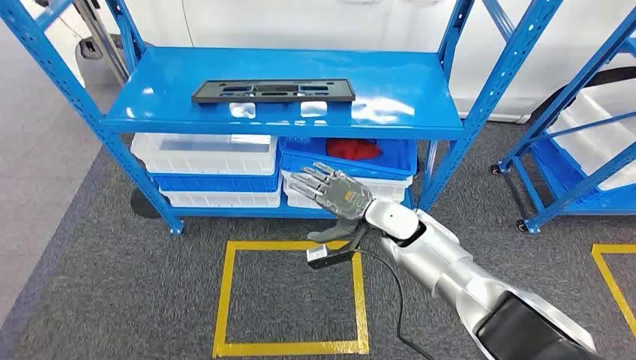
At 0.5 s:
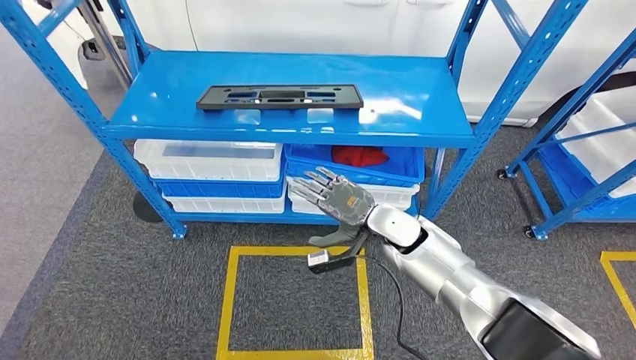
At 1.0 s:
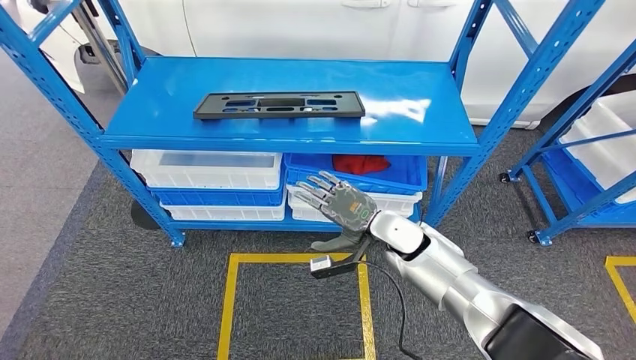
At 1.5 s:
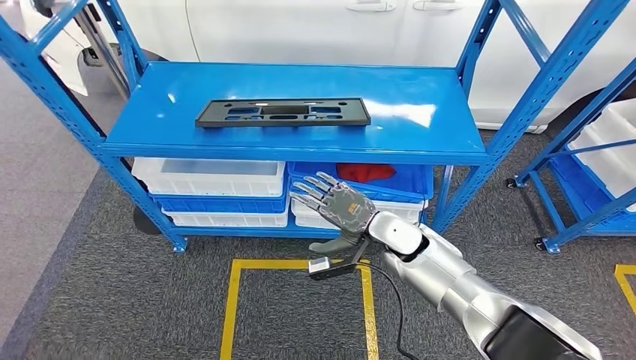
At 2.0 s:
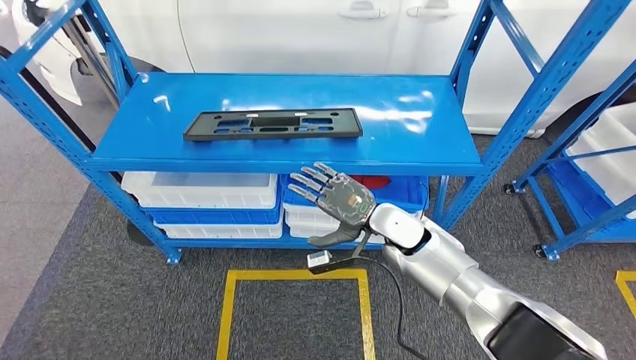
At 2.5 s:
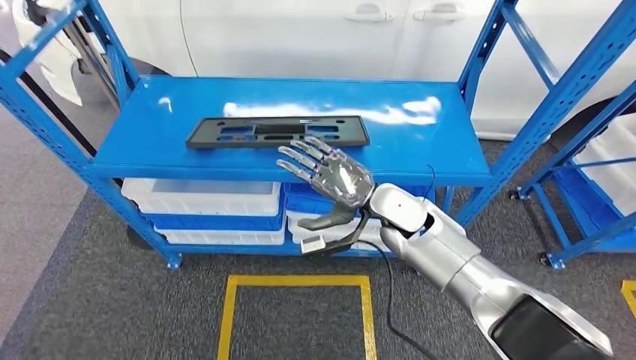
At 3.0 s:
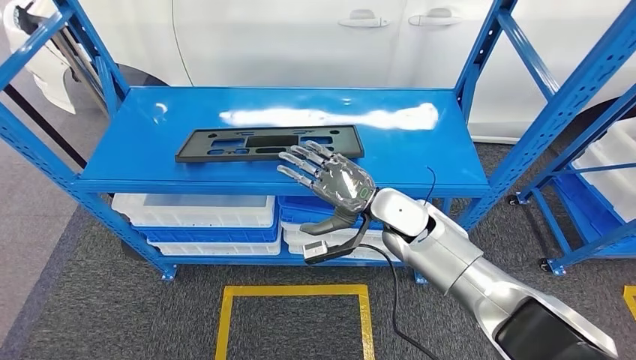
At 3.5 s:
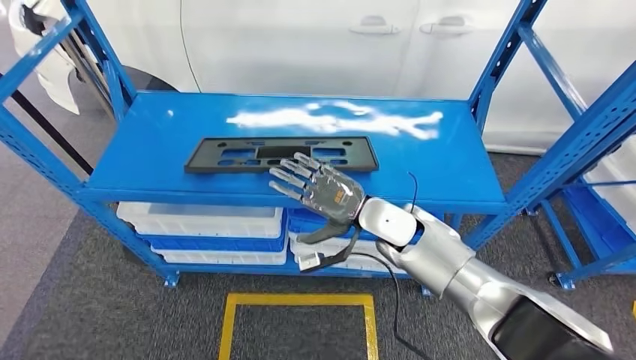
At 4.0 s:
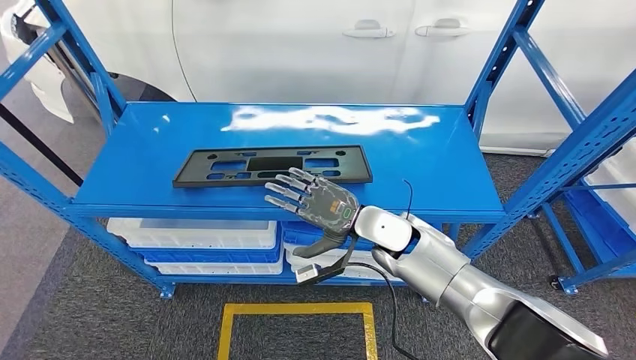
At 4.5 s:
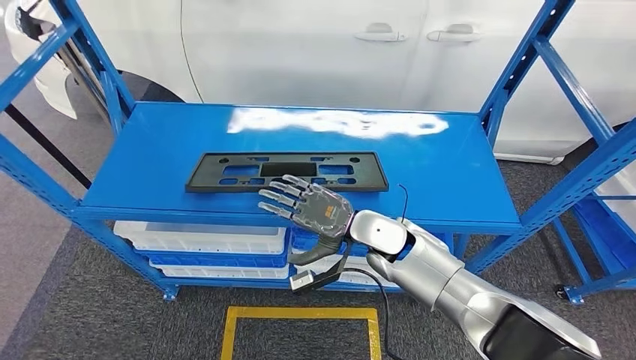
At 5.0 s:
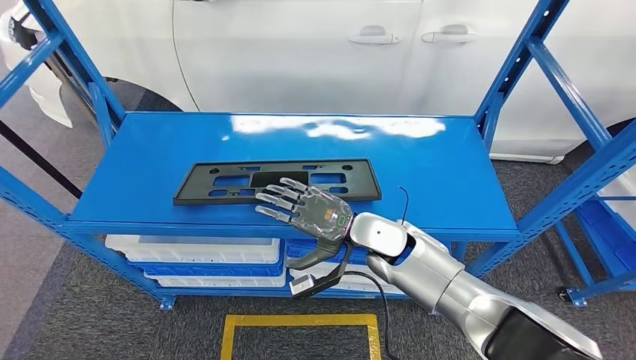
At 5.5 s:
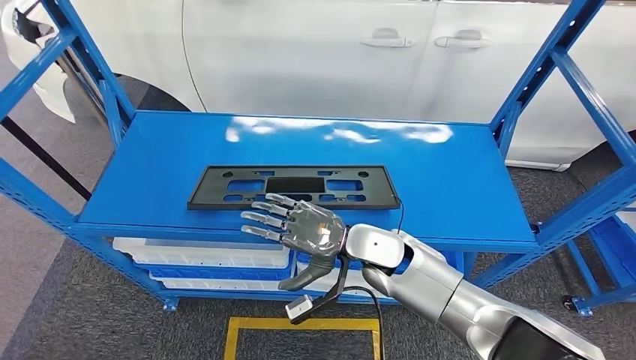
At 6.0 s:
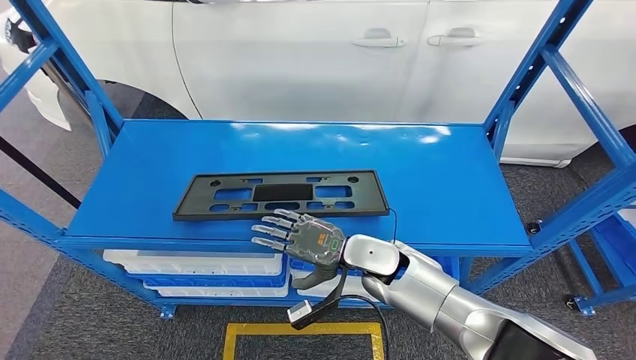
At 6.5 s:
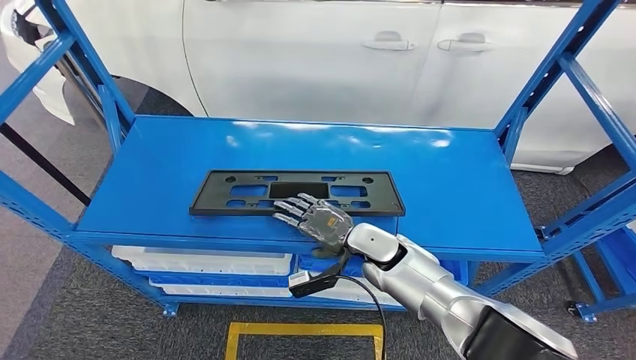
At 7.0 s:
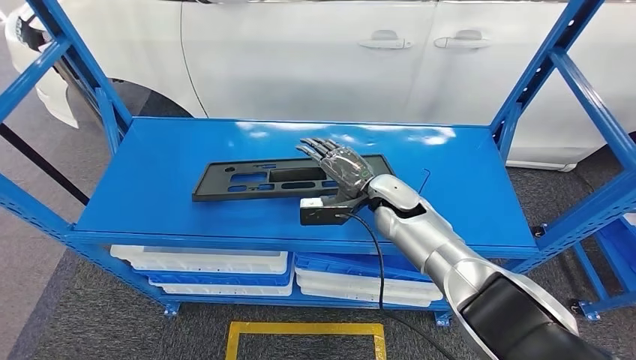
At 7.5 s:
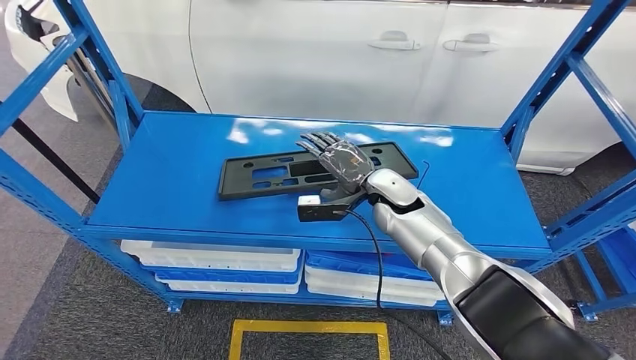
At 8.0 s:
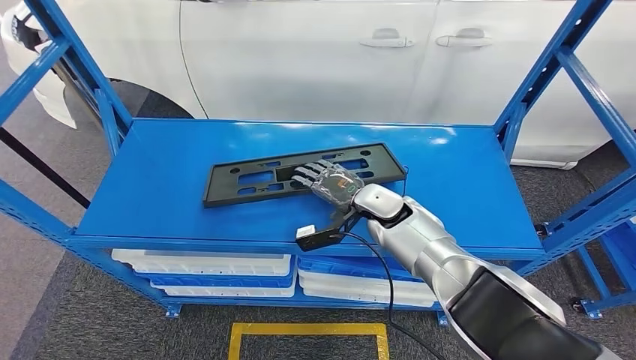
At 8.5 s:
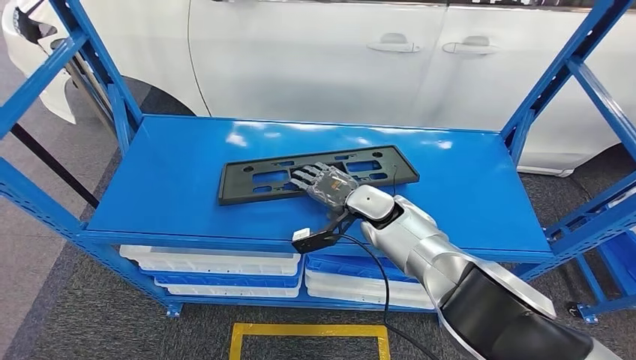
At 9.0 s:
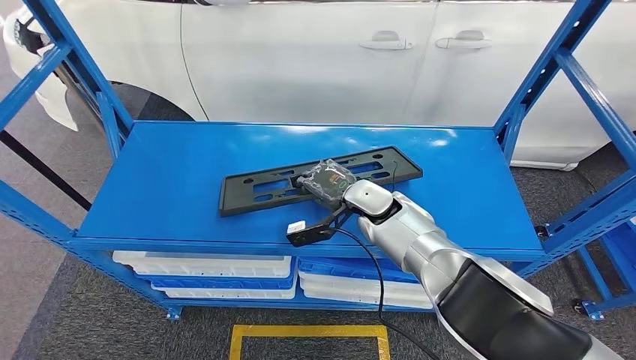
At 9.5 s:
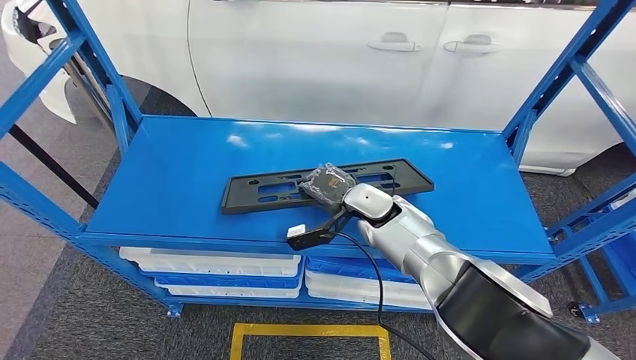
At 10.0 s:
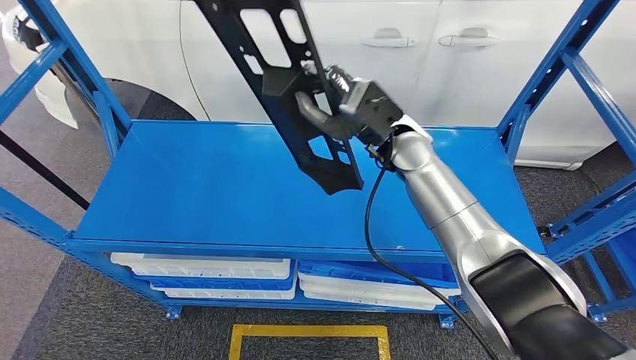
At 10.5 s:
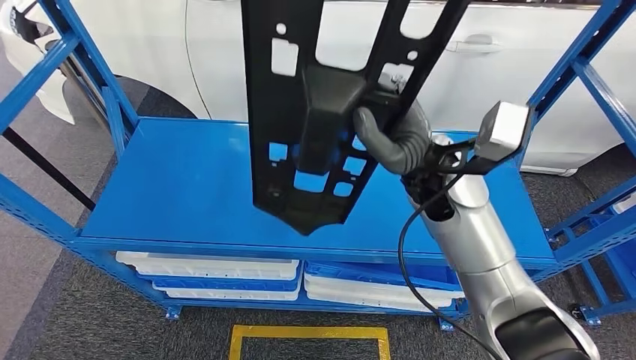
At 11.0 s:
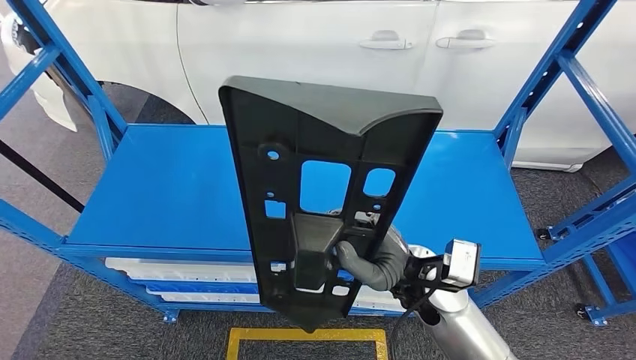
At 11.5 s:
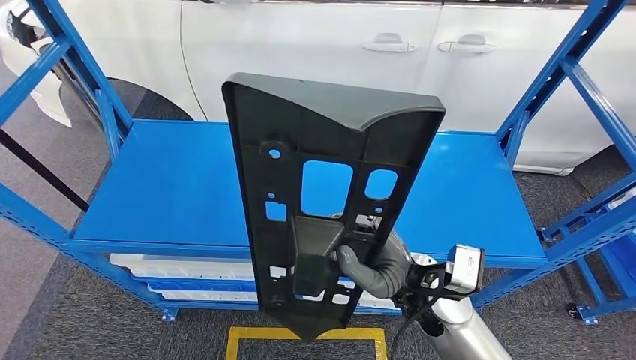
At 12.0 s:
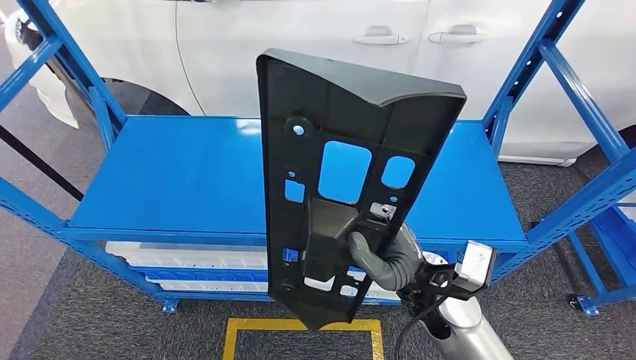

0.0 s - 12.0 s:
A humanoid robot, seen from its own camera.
Step, 0.0 s - 10.5 s: Pick up the large material from the shelf.

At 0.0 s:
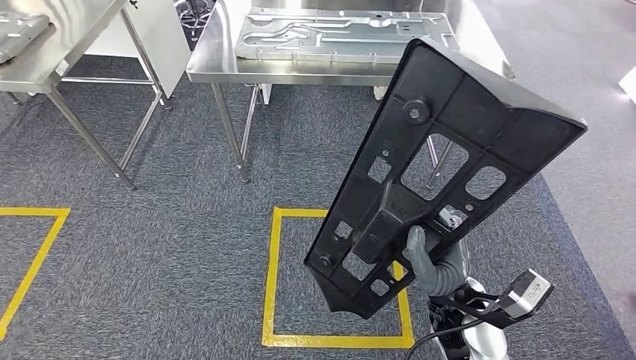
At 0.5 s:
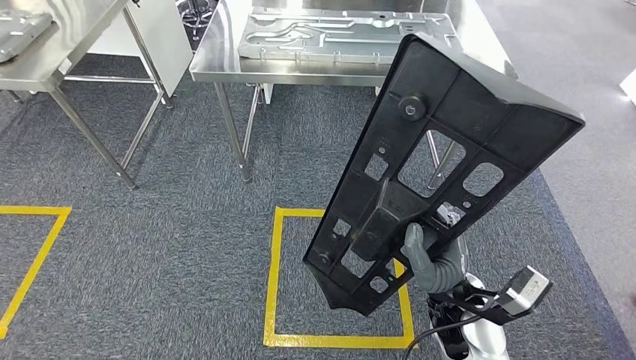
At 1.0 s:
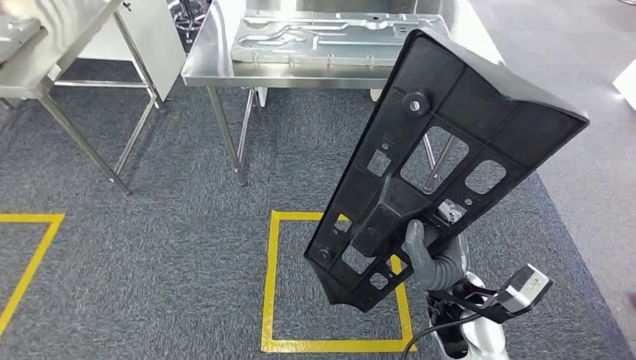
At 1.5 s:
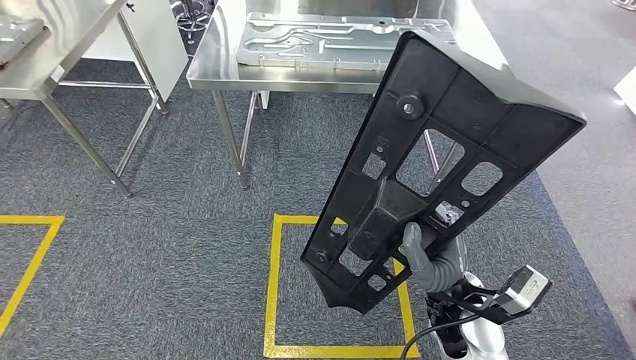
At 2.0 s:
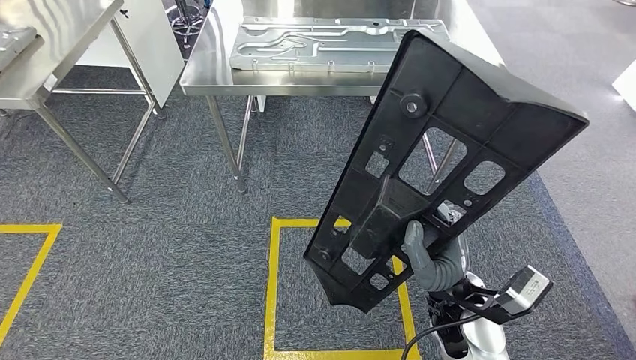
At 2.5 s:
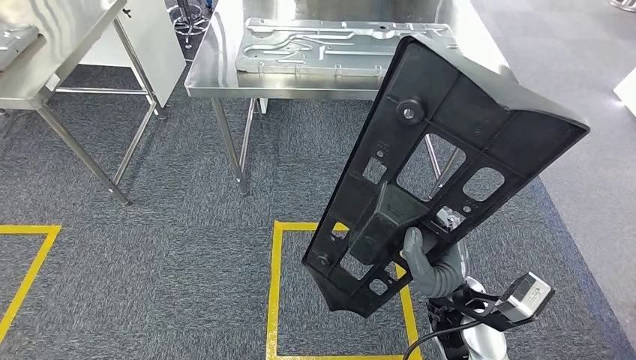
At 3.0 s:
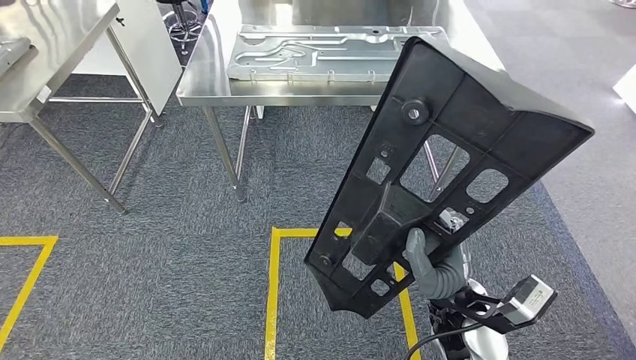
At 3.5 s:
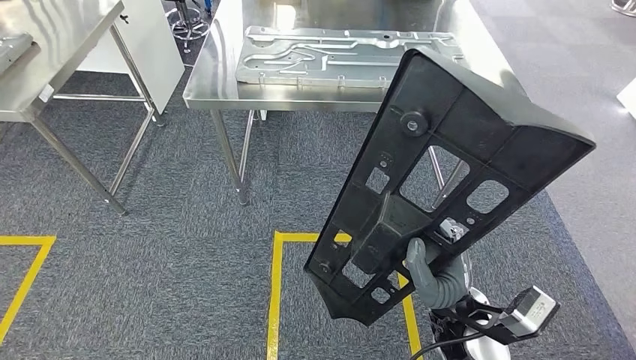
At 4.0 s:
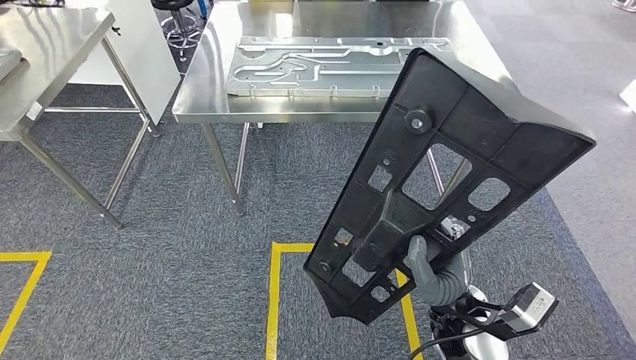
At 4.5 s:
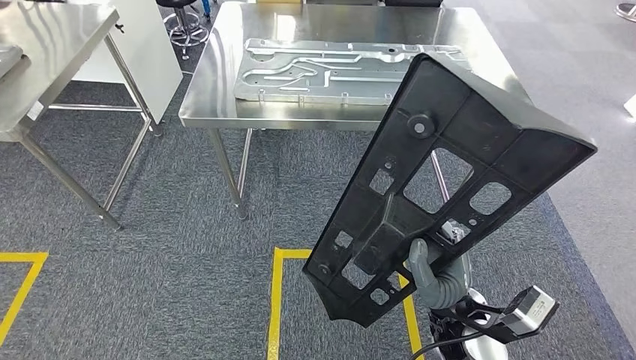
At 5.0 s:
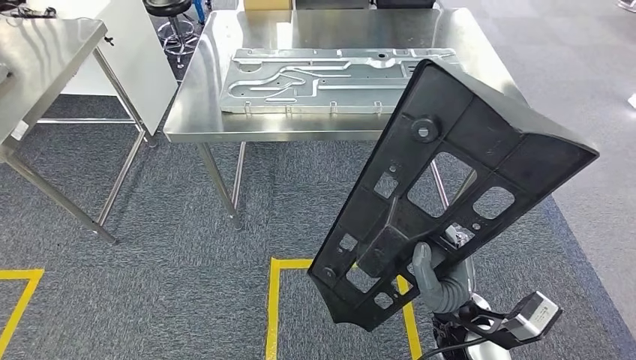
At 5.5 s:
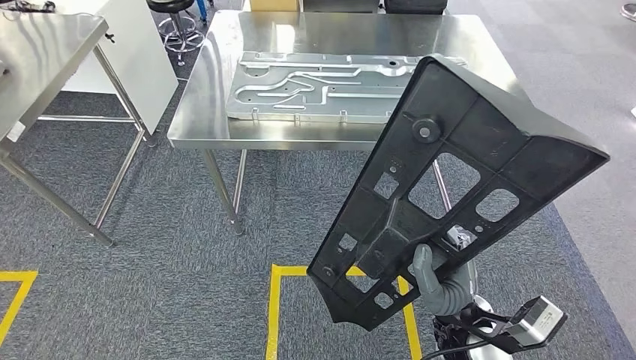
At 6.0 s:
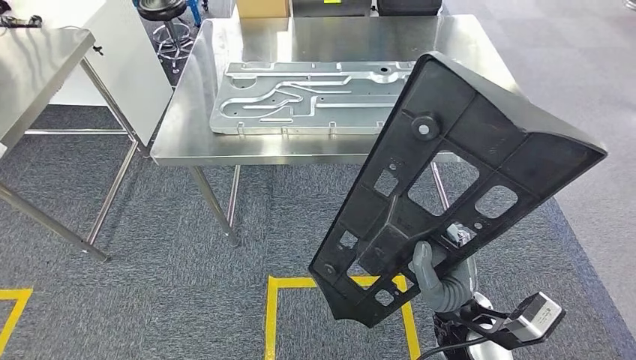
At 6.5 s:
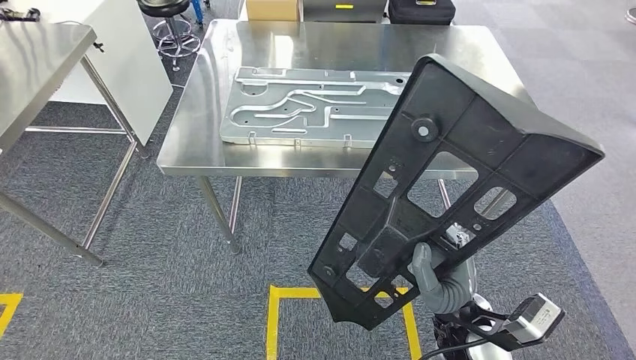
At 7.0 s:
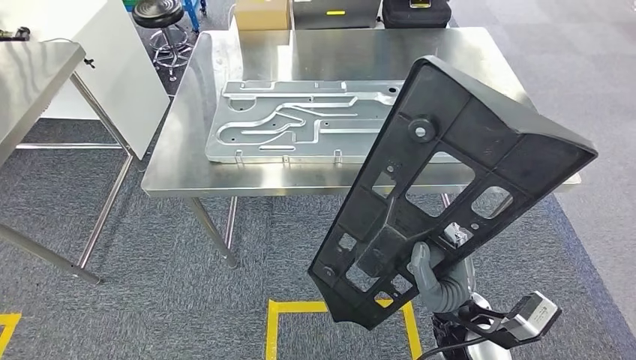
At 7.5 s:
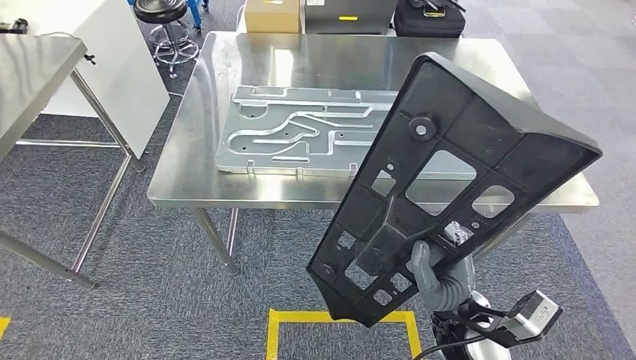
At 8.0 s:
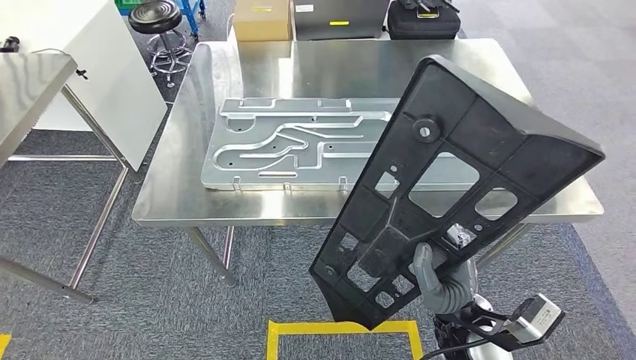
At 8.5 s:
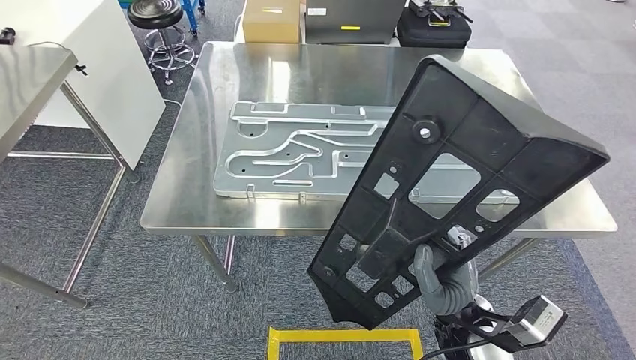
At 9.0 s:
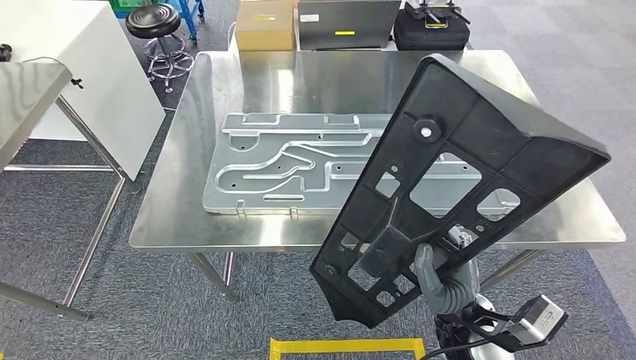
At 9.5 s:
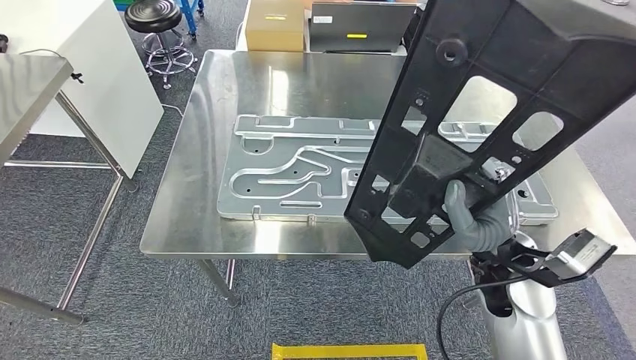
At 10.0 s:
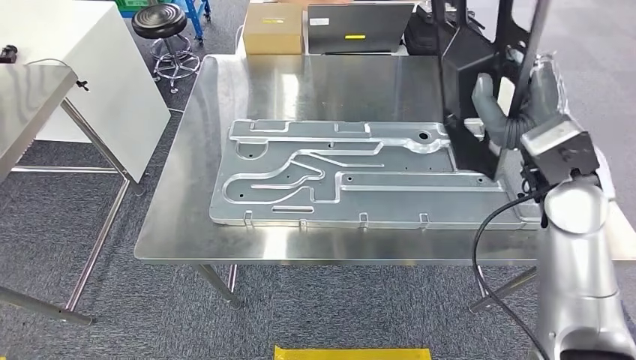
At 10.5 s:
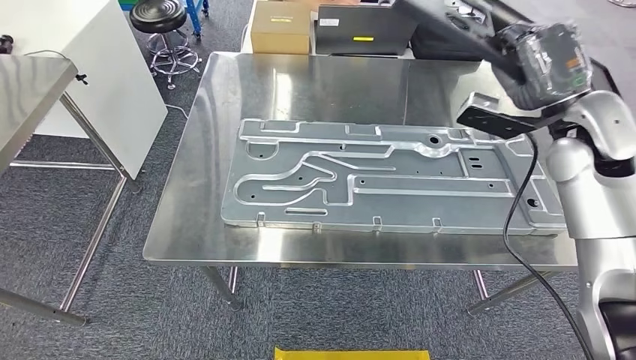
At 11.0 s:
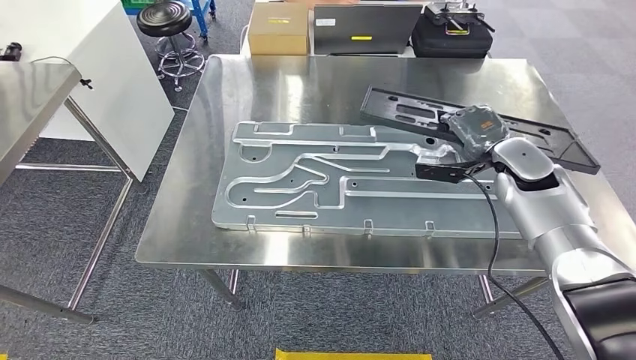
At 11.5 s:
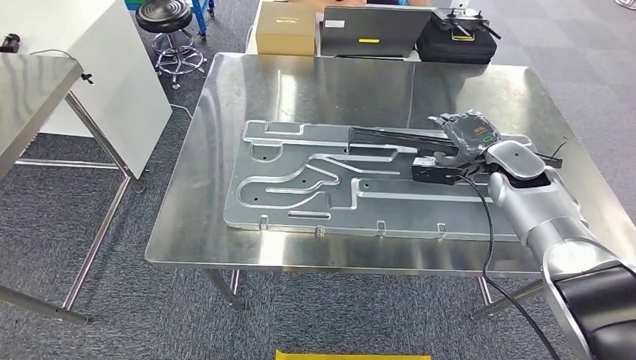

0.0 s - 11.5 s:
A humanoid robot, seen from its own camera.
Step, 0.0 s - 8.0 s: Move the large material to the workbench.
